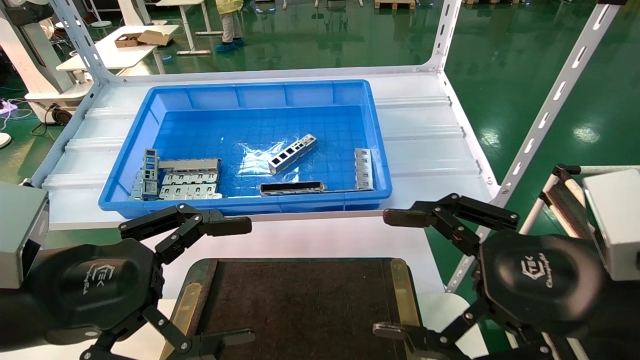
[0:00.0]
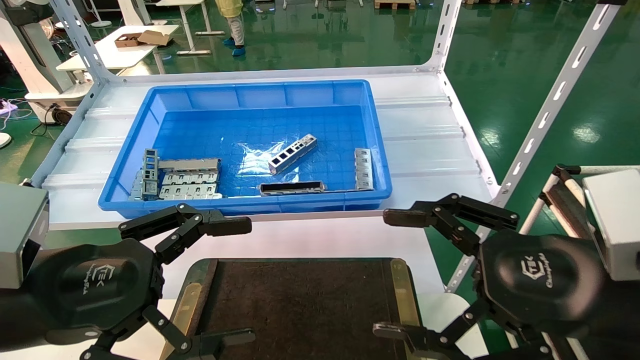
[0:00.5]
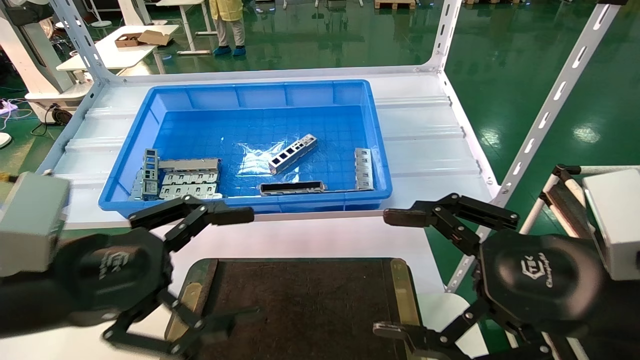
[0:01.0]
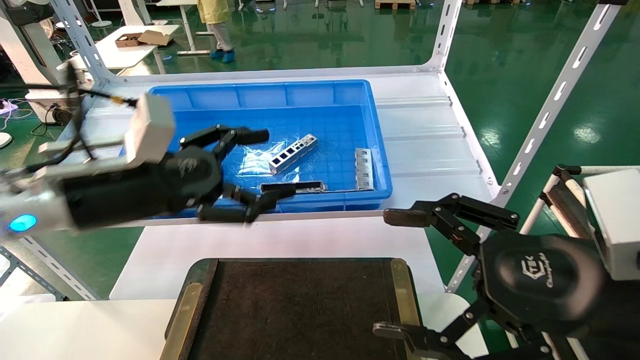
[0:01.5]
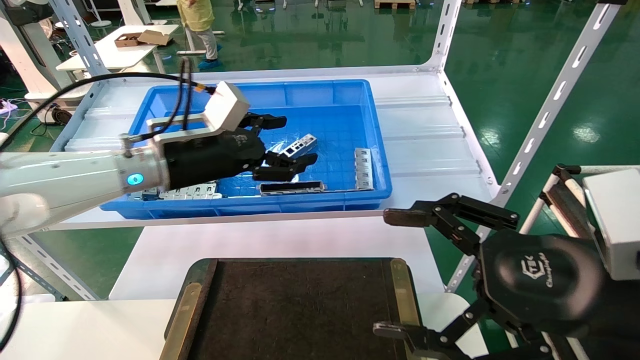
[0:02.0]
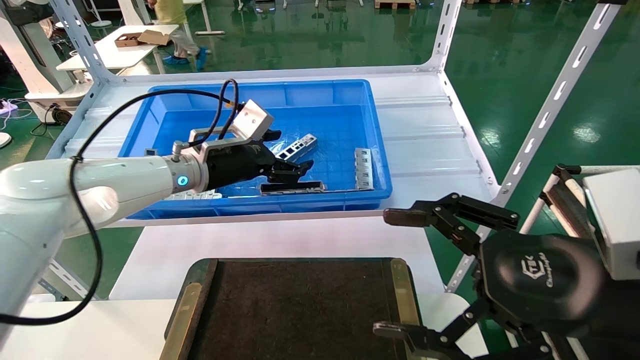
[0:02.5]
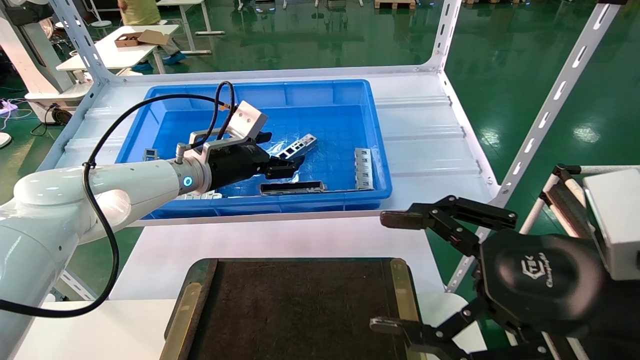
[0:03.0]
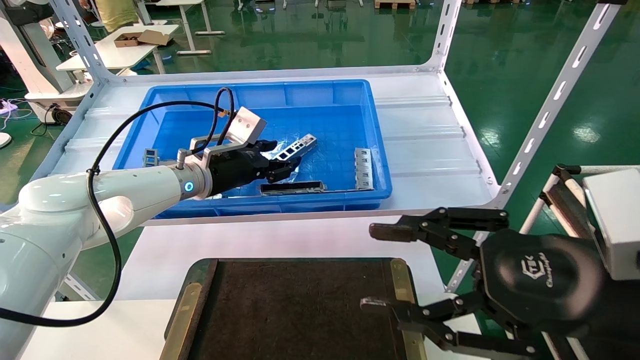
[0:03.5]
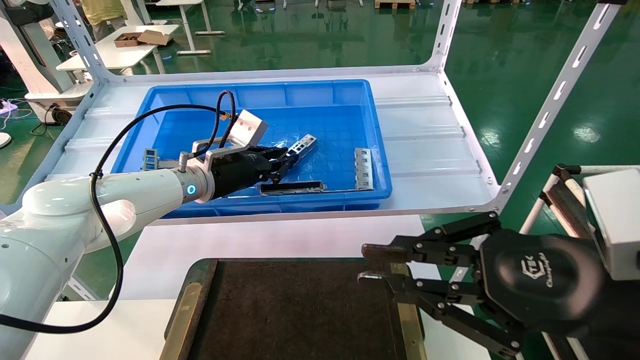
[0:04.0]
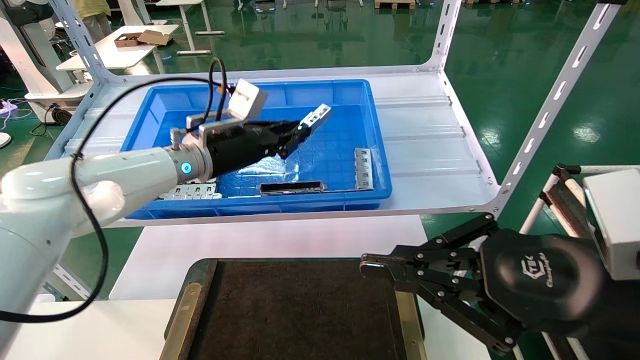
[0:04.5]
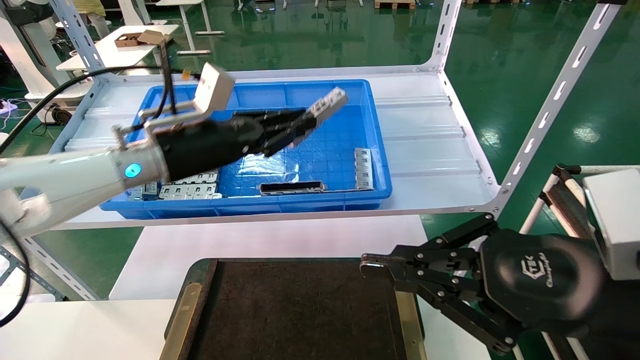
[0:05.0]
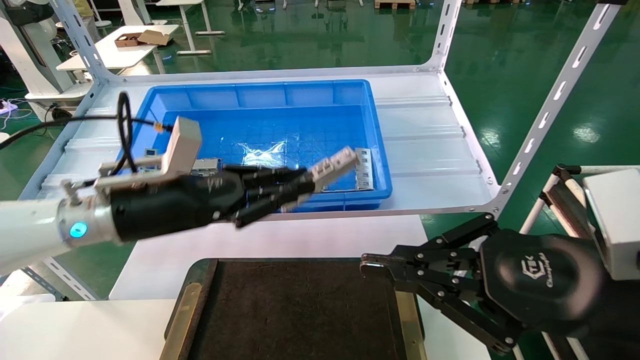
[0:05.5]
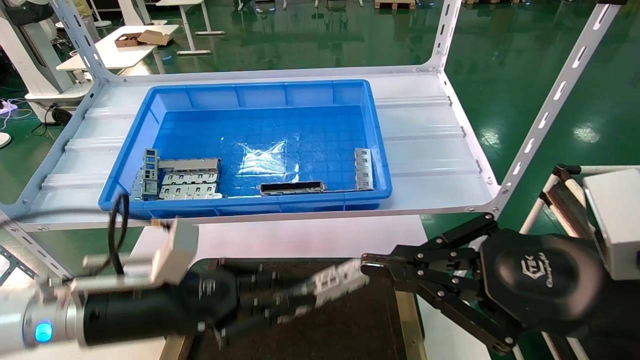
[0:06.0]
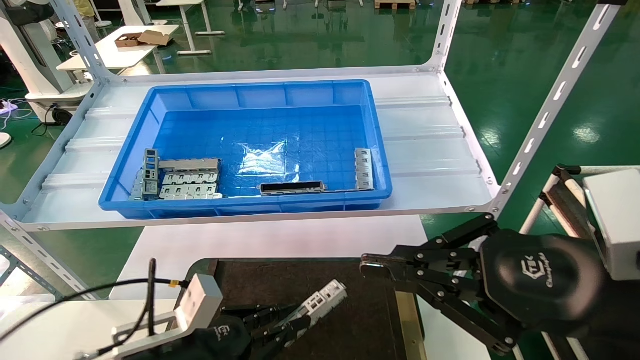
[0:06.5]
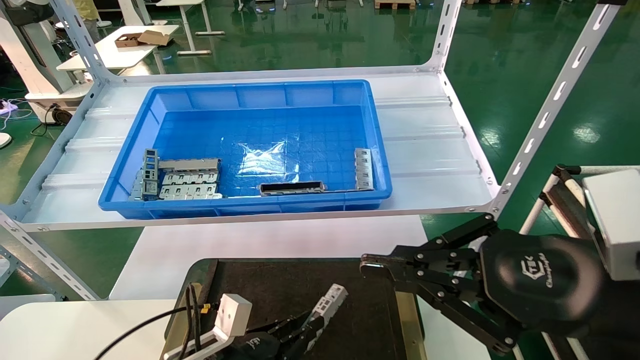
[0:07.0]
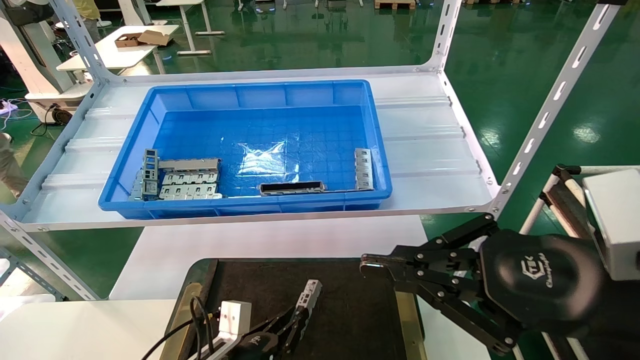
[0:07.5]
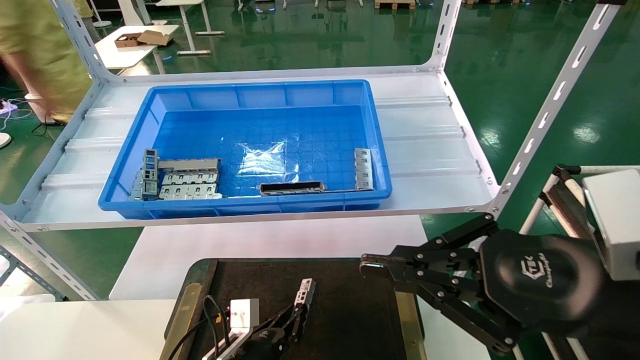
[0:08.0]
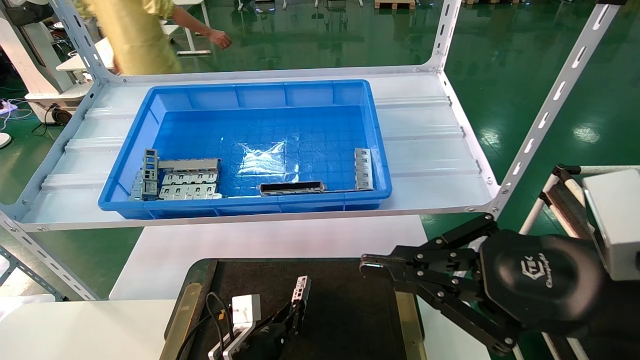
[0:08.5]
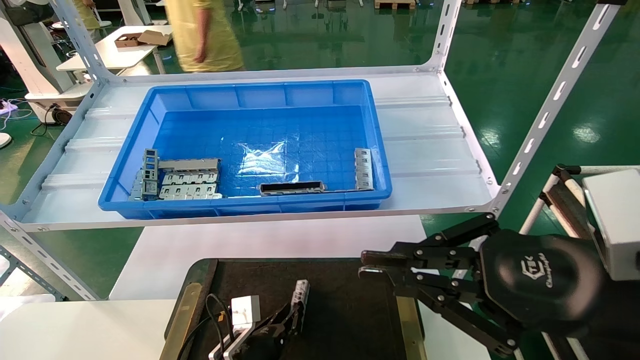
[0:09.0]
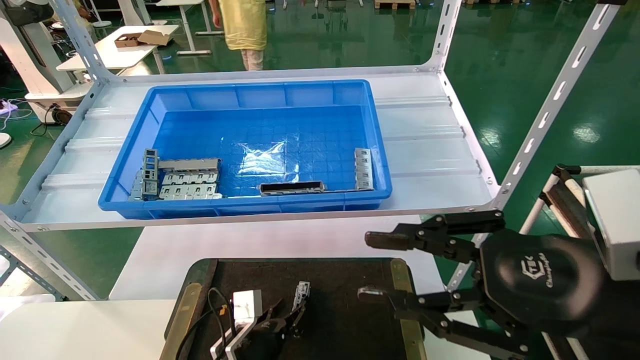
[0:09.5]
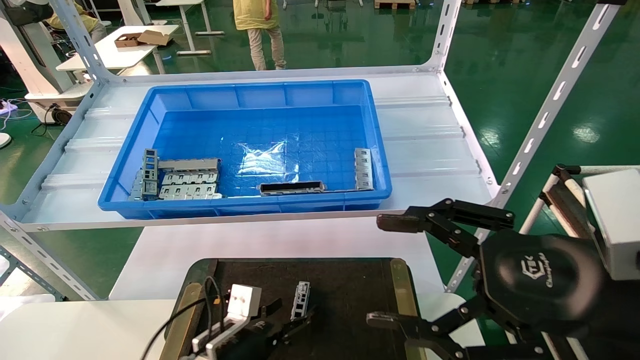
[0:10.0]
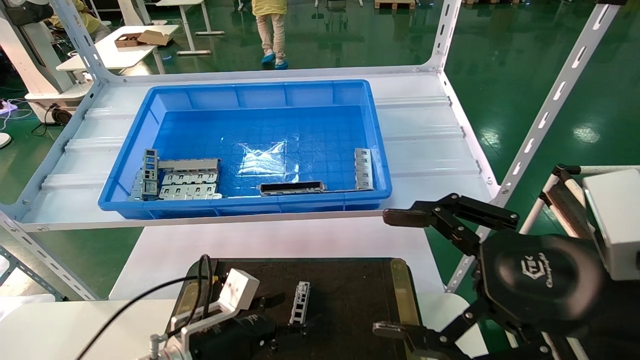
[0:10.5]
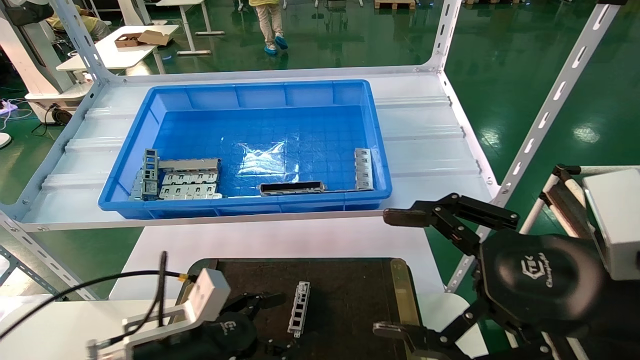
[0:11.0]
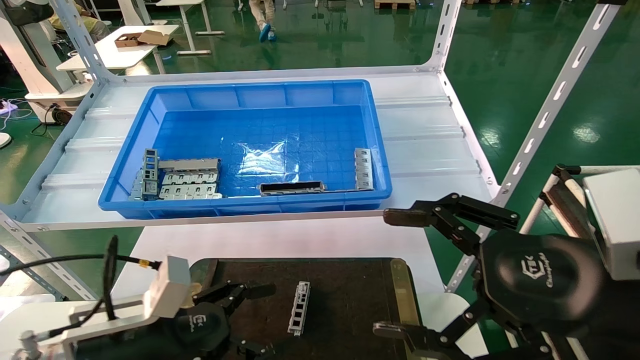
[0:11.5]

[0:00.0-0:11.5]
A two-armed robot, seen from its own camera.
Task of the whole recording: Grasp the part with one hand and place it on the black container.
Step, 0:01.0 to 0:04.0: Pick up the front USB bracket from the feeding area.
Step, 0:04.5 to 0:08.5: Place the front USB bracket into the box.
0:00.0 to 0:02.0: The left gripper heads forward, covering approximately 25 cm.
0:02.0 to 0:04.0: The left gripper shifts about 5 cm forward, and closes. Meanwhile the right gripper closes up.
0:04.0 to 0:06.0: The left gripper moves backward and downward, some 20 cm.
0:06.0 to 0:07.5: The left gripper shifts approximately 20 cm downward.
0:07.5 to 0:09.5: The left gripper shifts by some 5 cm.
0:09.5 to 0:11.5: The right gripper opens; the left gripper heads upward, backward and to the left, covering approximately 25 cm, and opens.

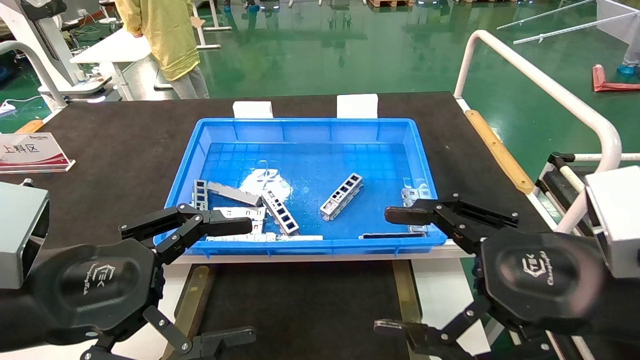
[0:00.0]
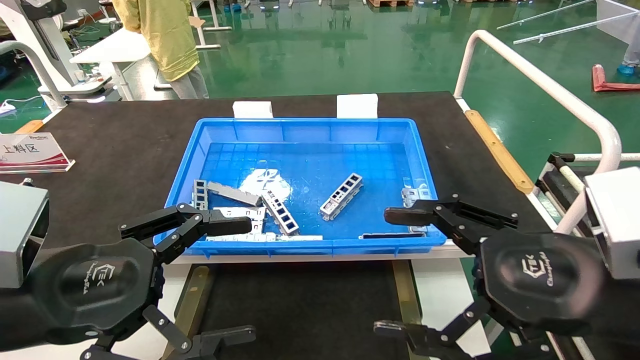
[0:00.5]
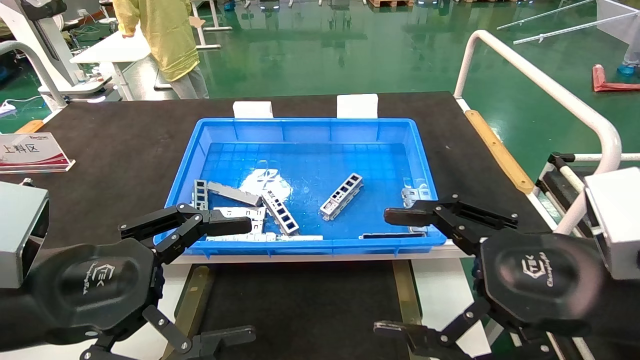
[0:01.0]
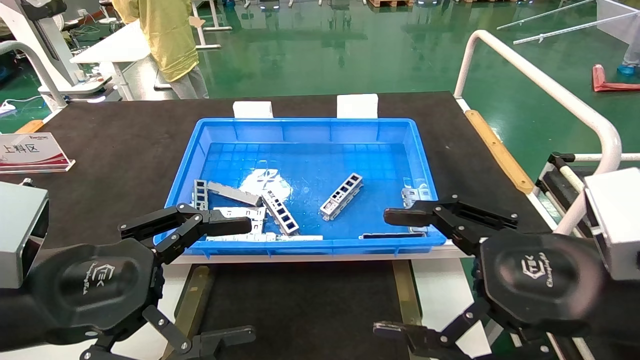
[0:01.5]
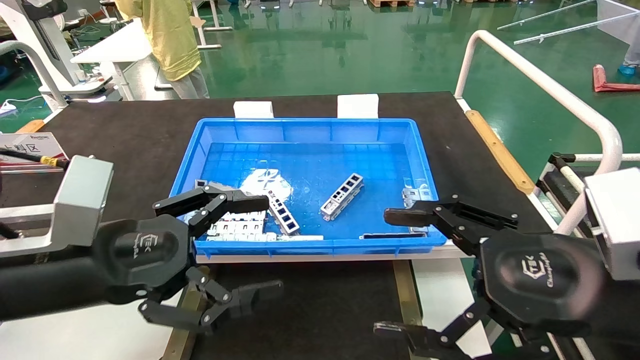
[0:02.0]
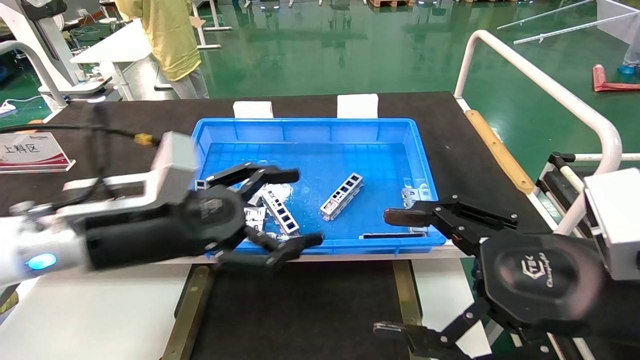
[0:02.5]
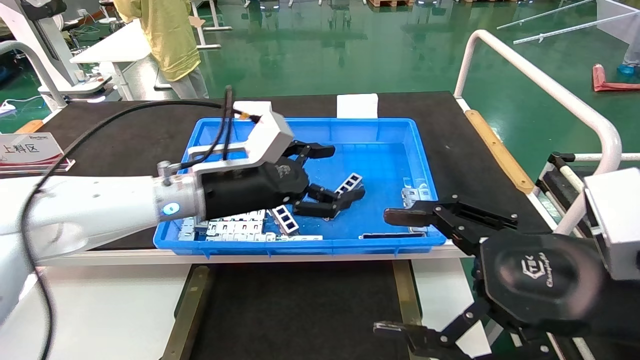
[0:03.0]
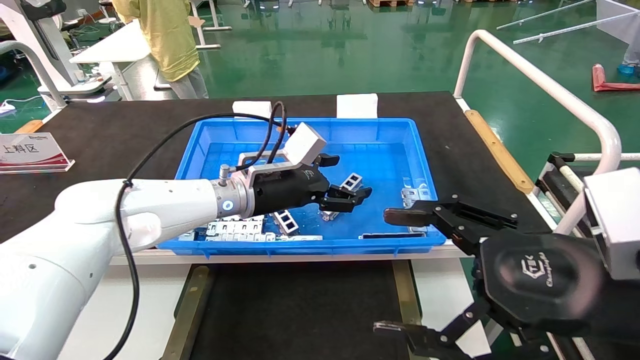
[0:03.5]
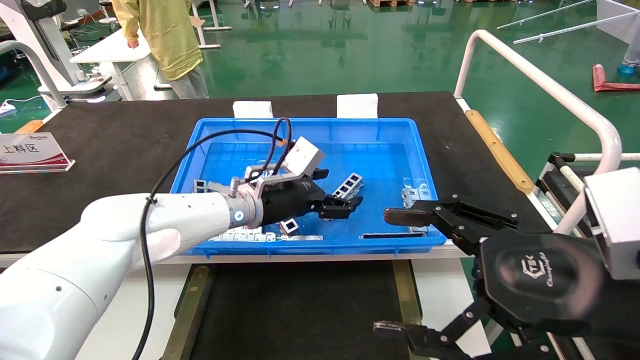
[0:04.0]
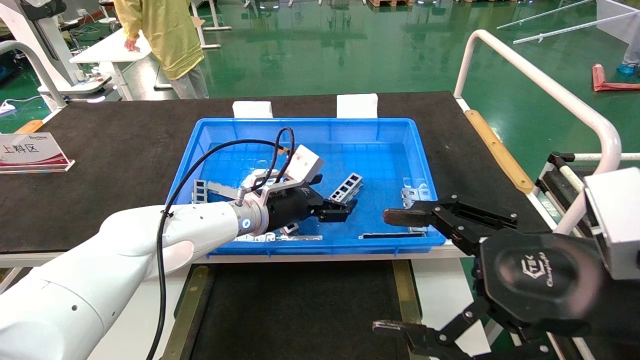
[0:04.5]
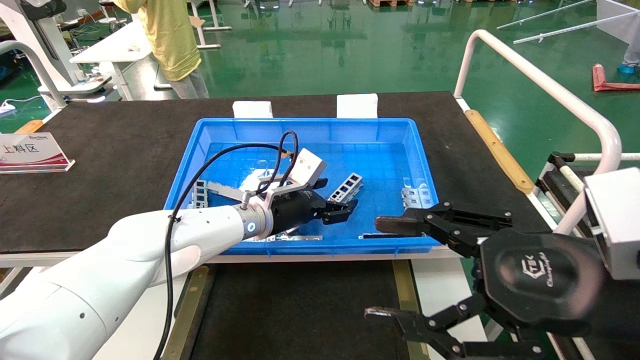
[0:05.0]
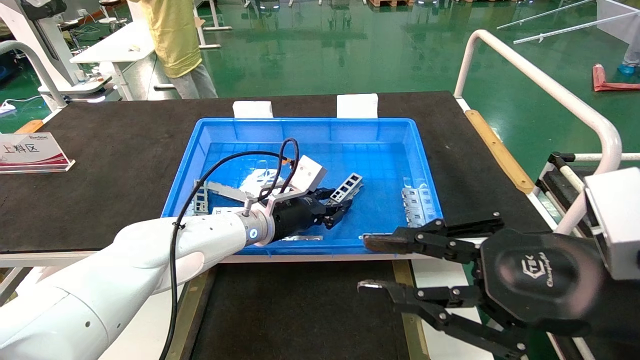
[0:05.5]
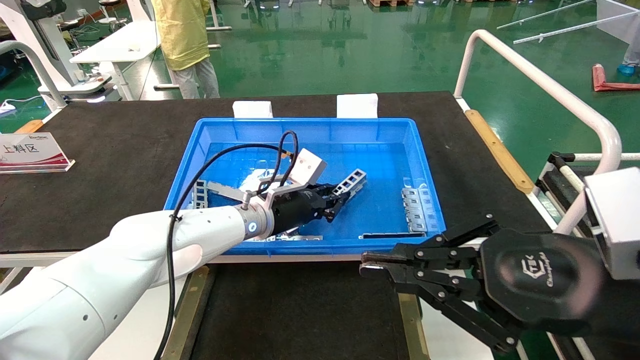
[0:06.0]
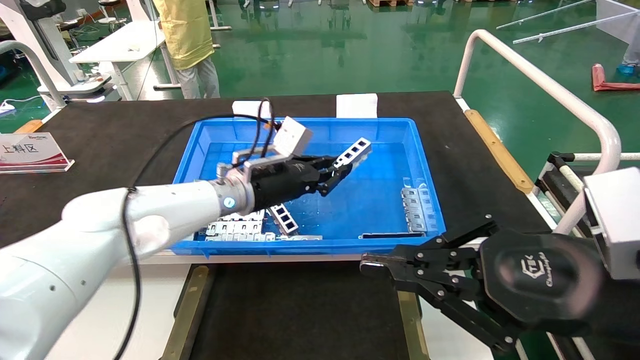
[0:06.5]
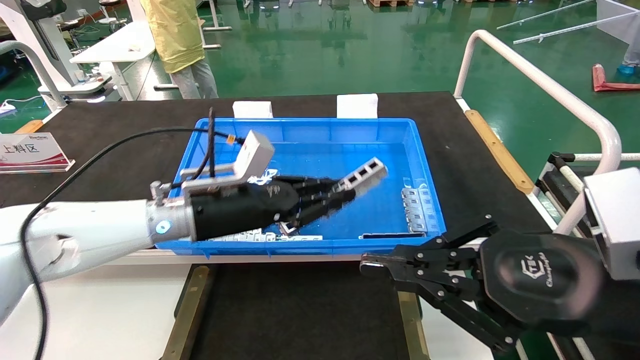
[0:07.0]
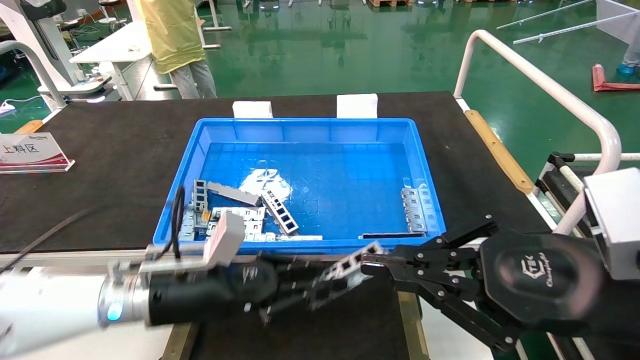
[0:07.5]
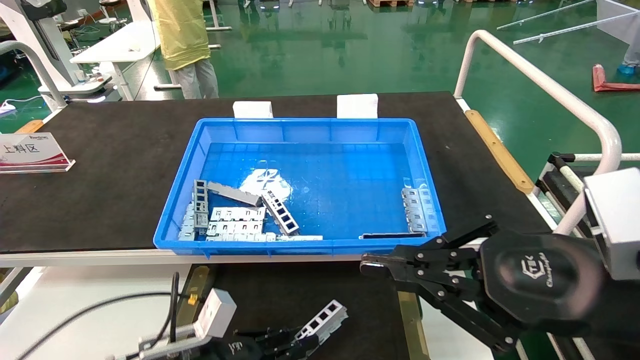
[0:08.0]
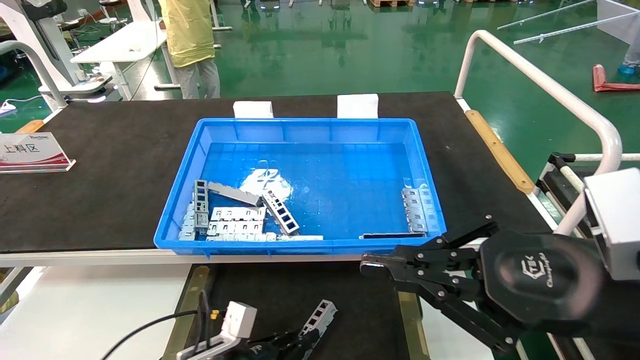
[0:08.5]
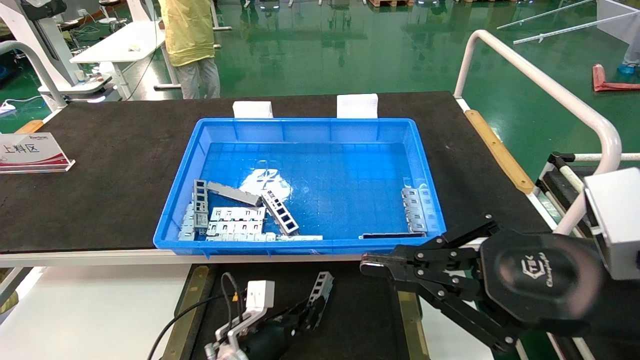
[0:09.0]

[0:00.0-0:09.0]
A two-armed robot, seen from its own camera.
Task of the whole recording: Grasp the part with one hand and place it on the black container.
Step, 0:02.0 to 0:06.0: Pick up the front USB bracket from the feeding area.
0:00.0 to 0:02.0: The grippers make only small movements.
0:02.0 to 0:04.5: The left gripper goes about 30 cm forward and to the right.
0:04.5 to 0:07.0: The right gripper closes up. Meanwhile the left gripper travels backward and to the left by some 10 cm, and closes.
0:07.0 to 0:09.0: The left gripper shifts about 25 cm downward.
